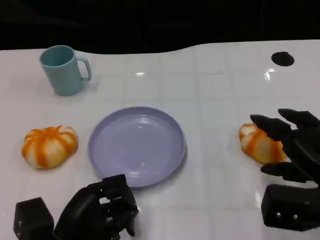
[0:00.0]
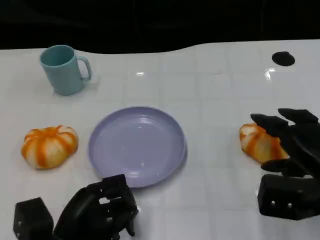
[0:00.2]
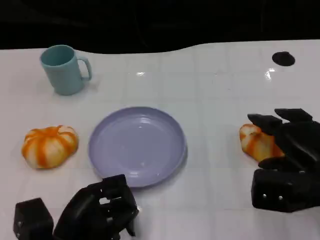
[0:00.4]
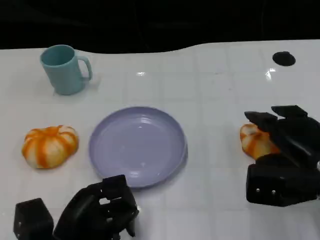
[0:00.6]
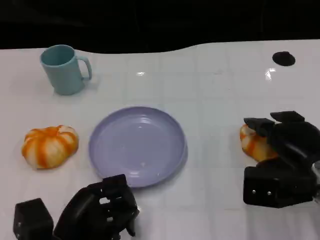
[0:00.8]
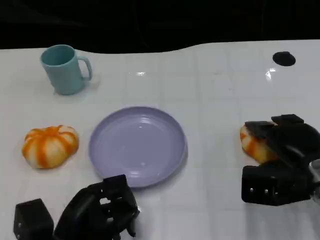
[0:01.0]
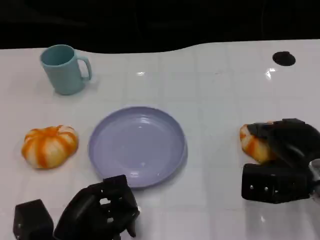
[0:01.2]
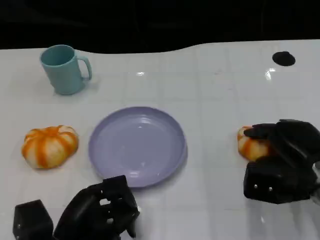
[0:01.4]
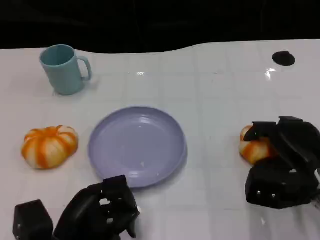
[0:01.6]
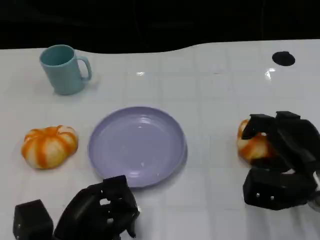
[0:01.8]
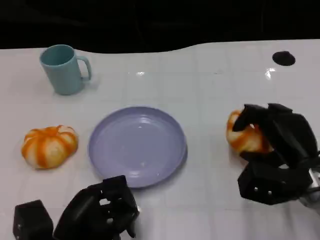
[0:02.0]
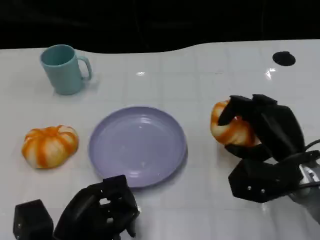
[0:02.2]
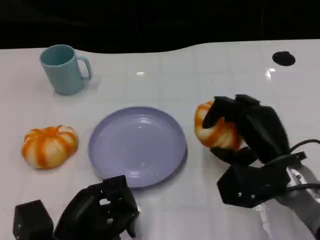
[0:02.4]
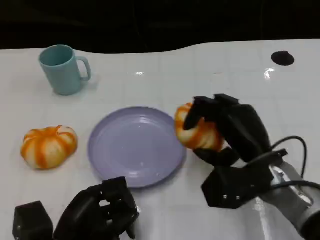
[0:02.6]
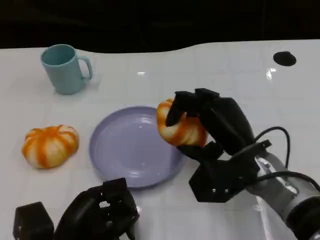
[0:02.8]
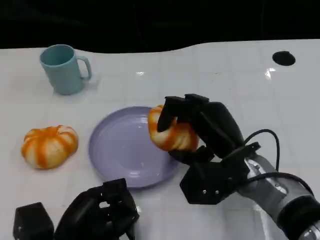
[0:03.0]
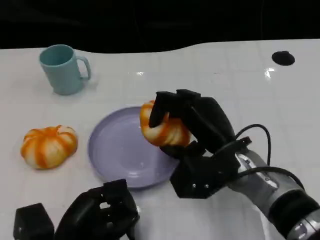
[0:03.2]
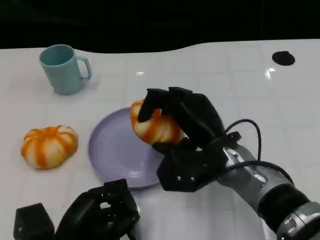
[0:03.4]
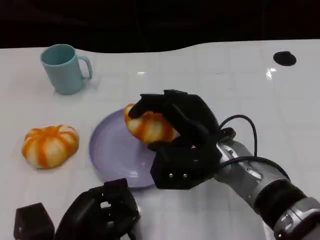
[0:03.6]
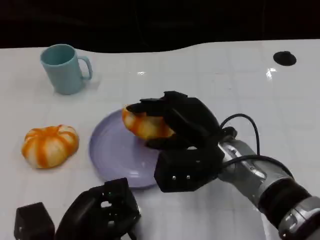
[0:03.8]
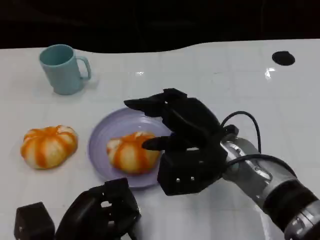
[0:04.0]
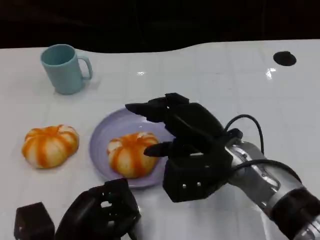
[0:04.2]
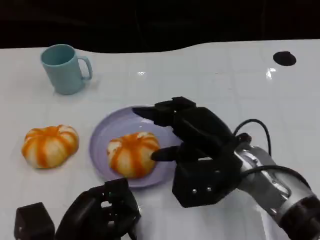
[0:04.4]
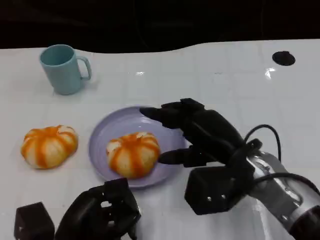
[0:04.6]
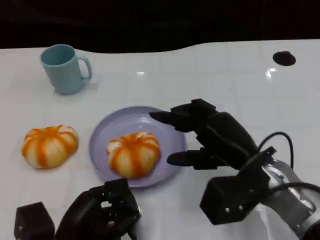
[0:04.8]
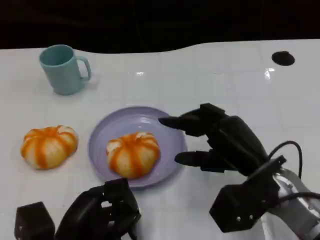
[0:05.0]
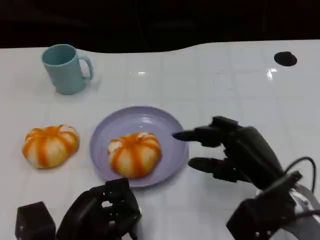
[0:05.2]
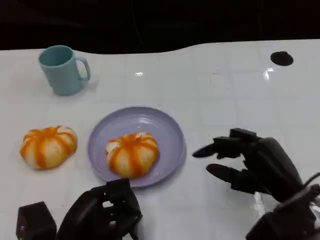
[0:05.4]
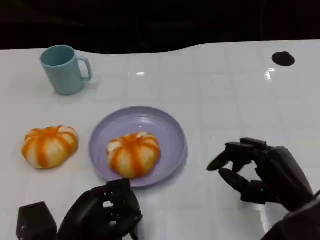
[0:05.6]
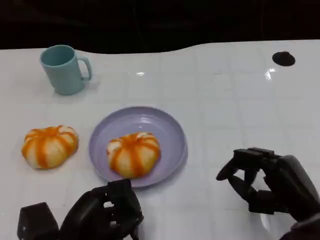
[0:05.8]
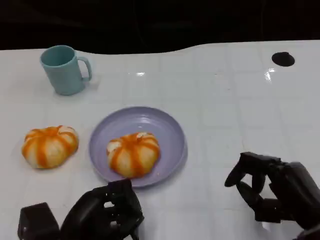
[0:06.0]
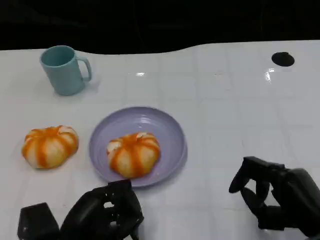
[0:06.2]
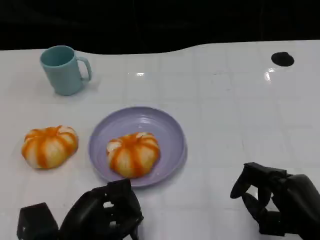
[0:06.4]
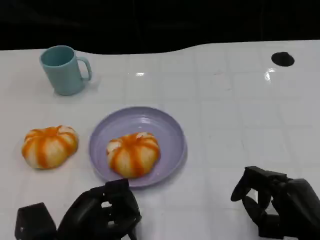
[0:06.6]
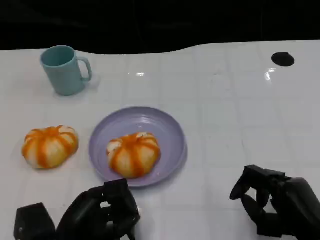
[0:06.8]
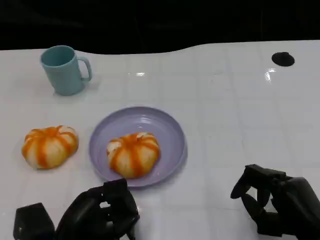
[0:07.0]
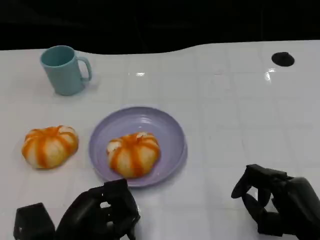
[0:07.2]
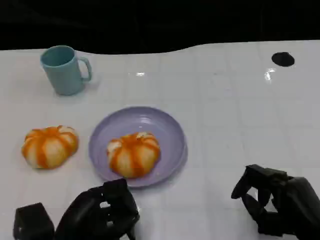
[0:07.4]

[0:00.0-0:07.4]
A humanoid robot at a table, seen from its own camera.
Task of the whole recording: Grasp the bread from the table and place it into the plate.
0:00.0 to 0:01.4: The right hand moves about 5 cm.
0:01.4 to 0:03.0: The right hand travels to the left by about 10 cm.
0:03.0 to 0:04.4: There are only small adjustments of the hands.
0:04.4 to 0:06.0: The right hand shifts approximately 15 cm to the right, backward and downward.
0:06.0 to 0:07.4: There are only small adjustments of the hands.

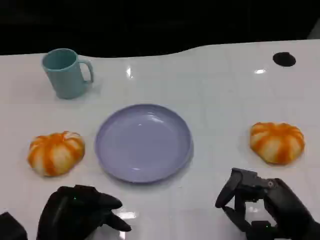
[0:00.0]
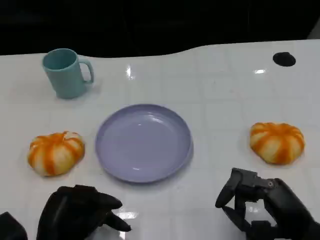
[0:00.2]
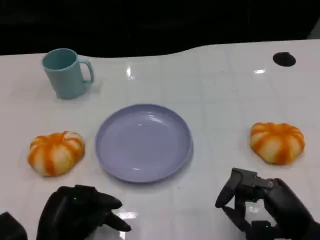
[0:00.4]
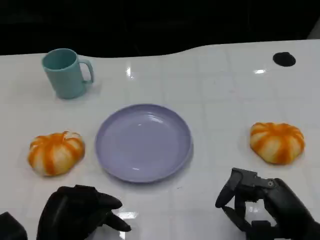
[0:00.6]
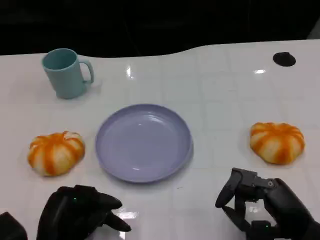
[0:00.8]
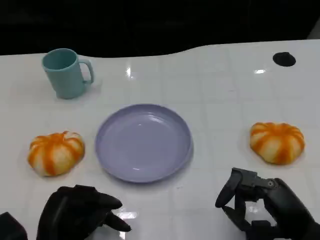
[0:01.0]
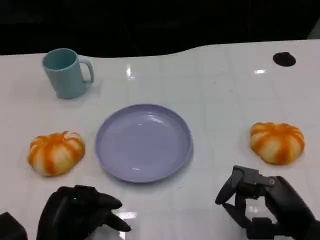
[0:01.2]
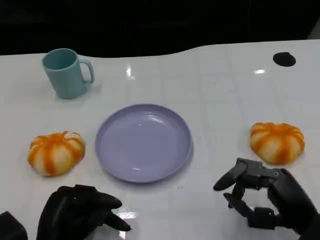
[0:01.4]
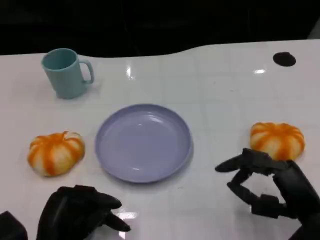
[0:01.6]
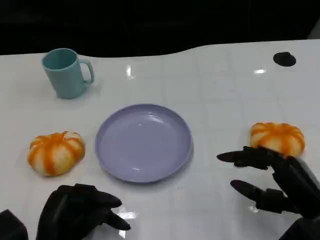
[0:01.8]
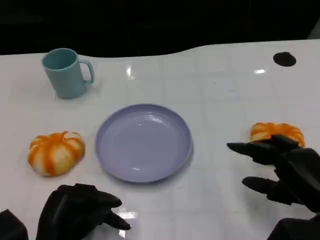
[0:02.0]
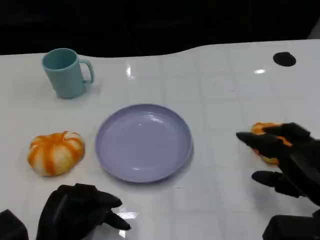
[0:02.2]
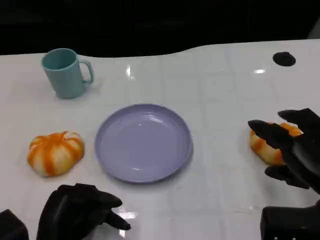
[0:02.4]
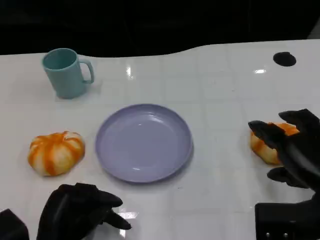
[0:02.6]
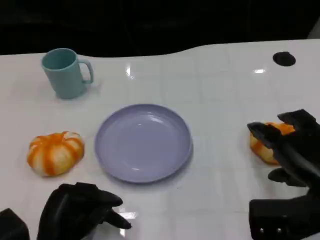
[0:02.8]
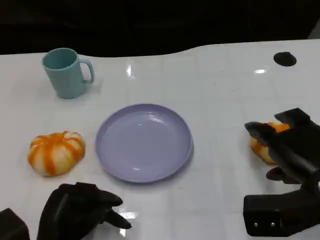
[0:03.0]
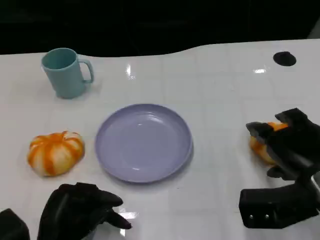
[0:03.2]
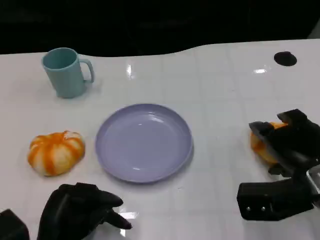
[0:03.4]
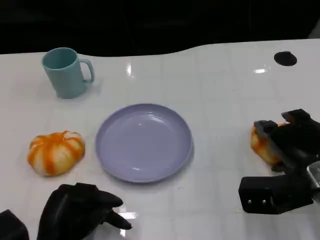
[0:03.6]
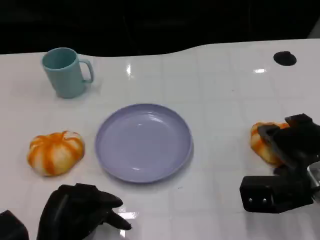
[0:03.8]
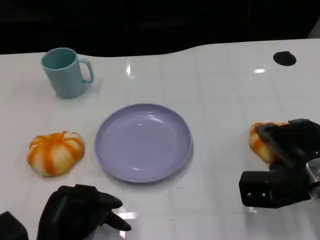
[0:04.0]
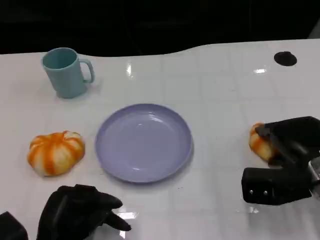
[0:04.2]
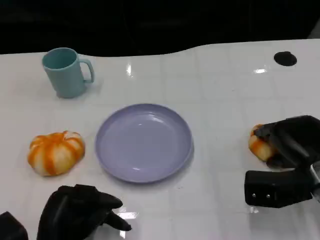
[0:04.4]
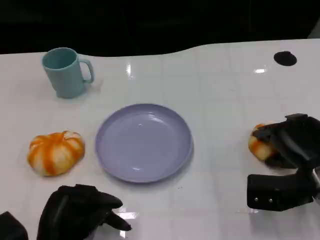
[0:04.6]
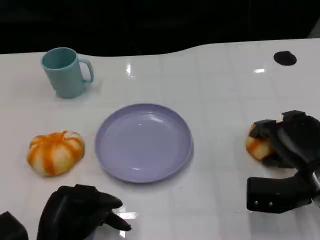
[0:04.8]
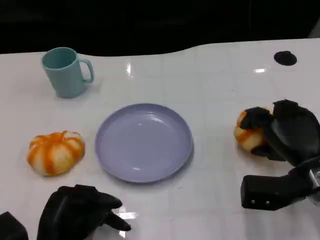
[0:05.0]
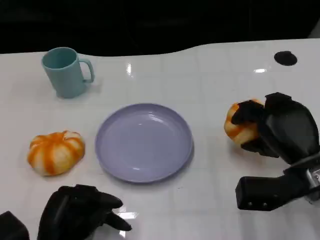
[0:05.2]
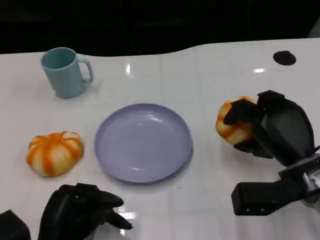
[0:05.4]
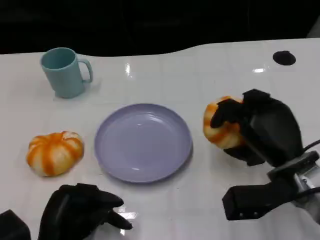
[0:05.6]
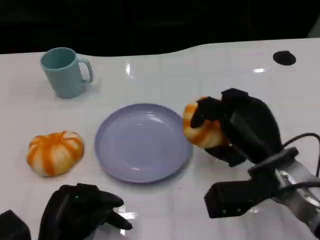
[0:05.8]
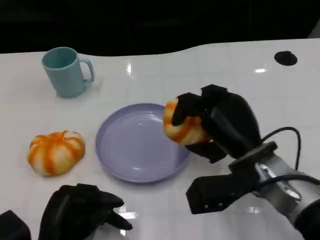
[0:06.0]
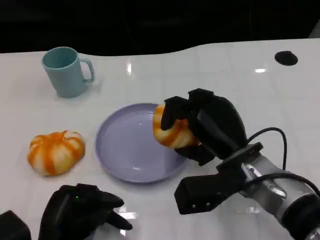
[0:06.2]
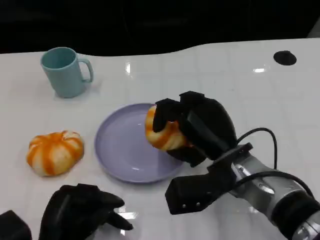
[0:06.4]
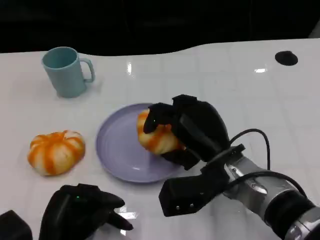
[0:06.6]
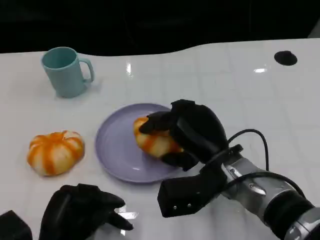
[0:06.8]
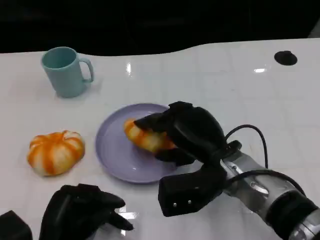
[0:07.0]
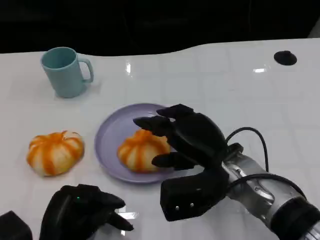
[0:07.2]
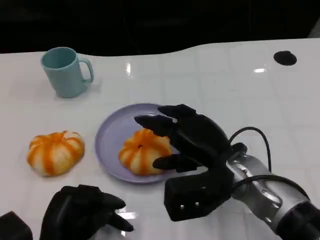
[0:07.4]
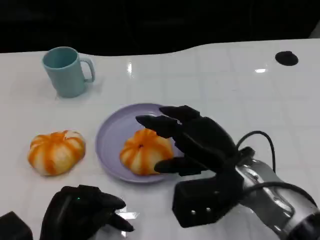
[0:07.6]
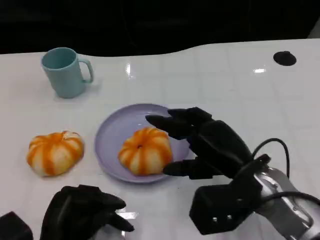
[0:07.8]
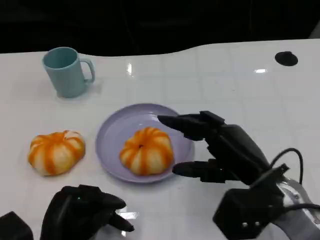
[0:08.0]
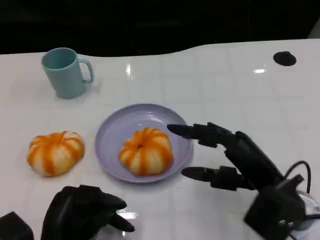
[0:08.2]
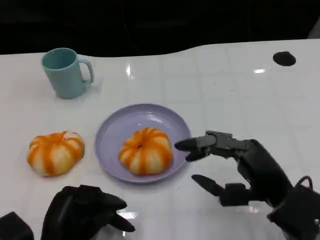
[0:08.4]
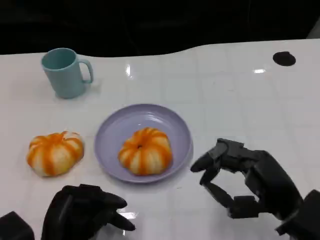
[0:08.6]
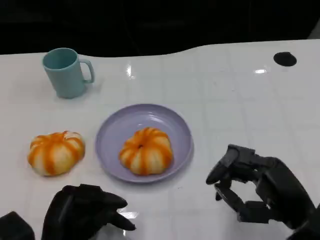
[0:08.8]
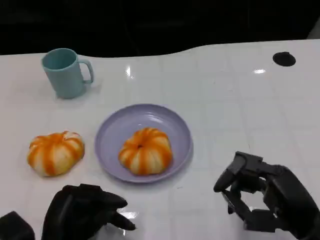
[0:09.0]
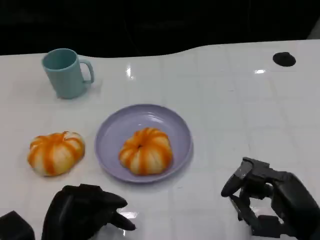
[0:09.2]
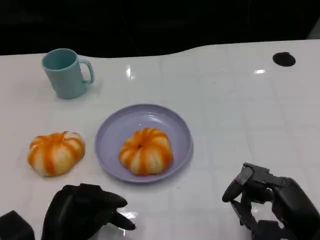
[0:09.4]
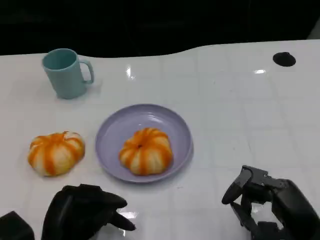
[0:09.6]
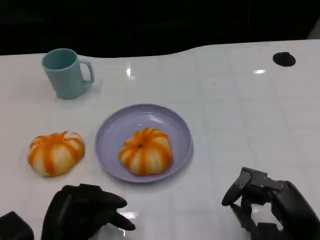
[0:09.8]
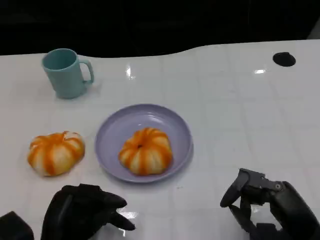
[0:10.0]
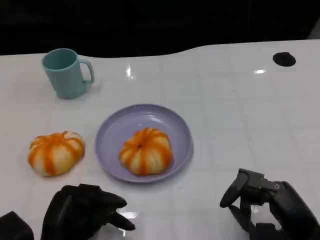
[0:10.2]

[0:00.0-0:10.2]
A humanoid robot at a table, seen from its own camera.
Task of the whole recording: Grasp the bread from the table and place it into the plate.
0:00.0 to 0:01.4: The hands stay close to where they were, moving slightly.
0:01.4 to 0:03.0: The right hand goes some 5 cm upward.
0:03.0 to 0:04.4: The right hand goes about 5 cm downward and forward.
0:04.4 to 0:05.8: The right hand shifts about 10 cm to the left.
0:05.8 to 0:07.2: The right hand is displaced to the left by some 5 cm.
0:07.2 to 0:08.8: The right hand heads to the right and backward, covering about 15 cm.
0:08.8 to 0:10.2: The hands move only a little.

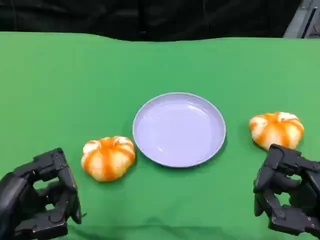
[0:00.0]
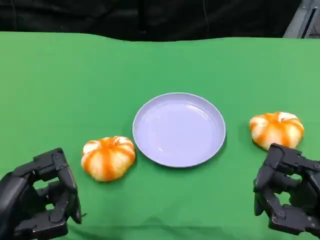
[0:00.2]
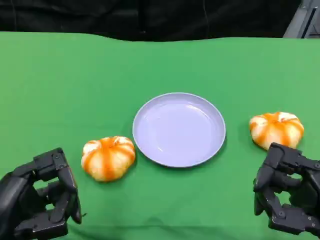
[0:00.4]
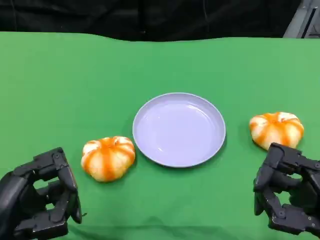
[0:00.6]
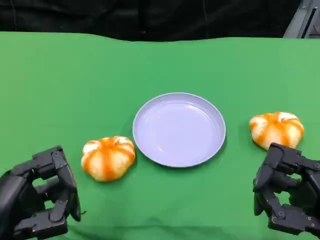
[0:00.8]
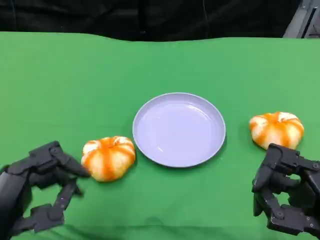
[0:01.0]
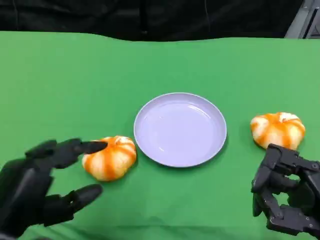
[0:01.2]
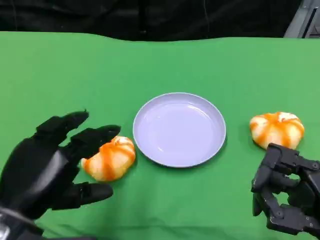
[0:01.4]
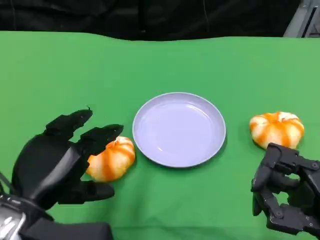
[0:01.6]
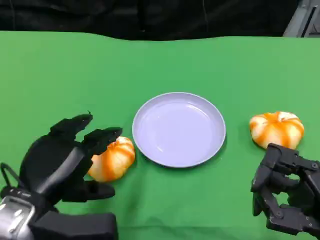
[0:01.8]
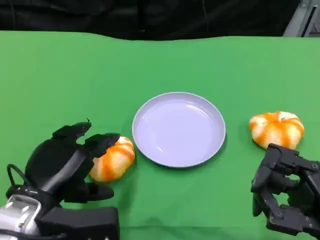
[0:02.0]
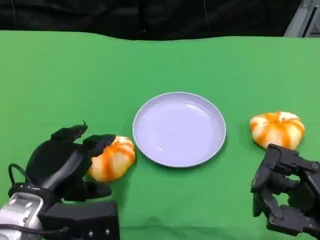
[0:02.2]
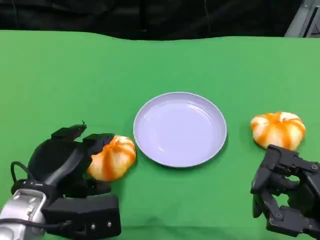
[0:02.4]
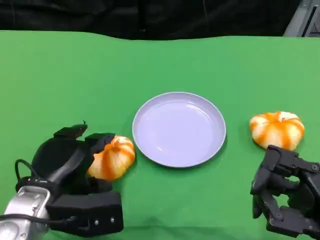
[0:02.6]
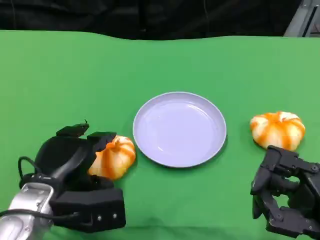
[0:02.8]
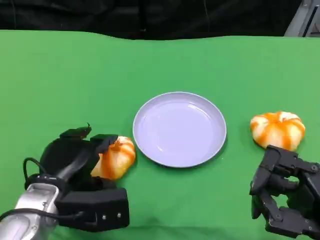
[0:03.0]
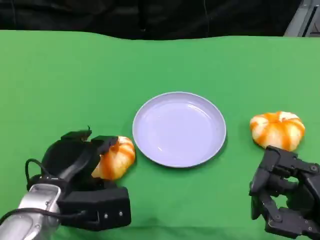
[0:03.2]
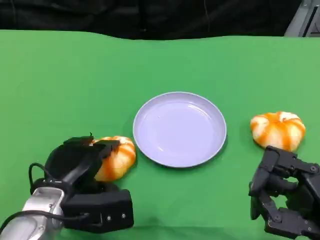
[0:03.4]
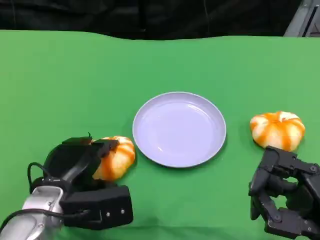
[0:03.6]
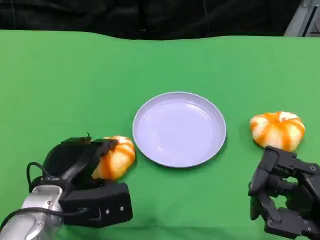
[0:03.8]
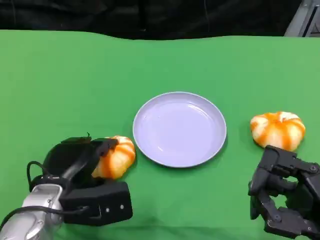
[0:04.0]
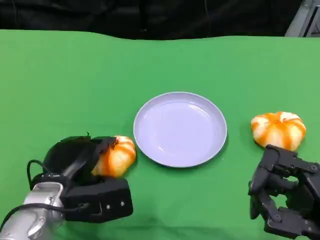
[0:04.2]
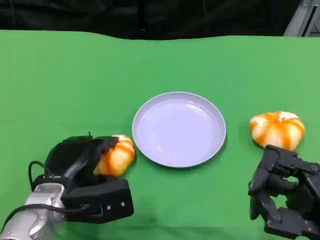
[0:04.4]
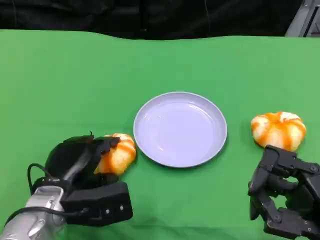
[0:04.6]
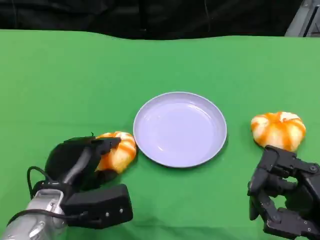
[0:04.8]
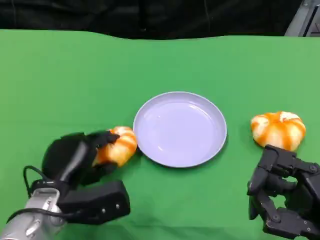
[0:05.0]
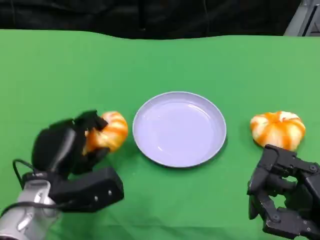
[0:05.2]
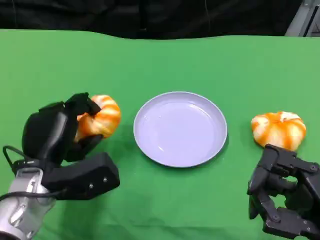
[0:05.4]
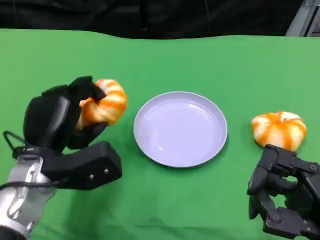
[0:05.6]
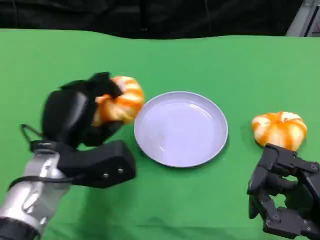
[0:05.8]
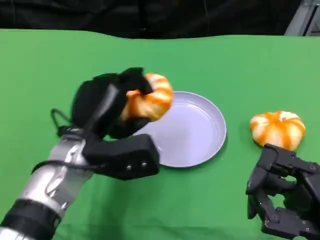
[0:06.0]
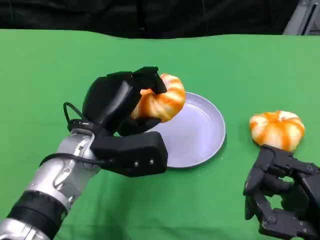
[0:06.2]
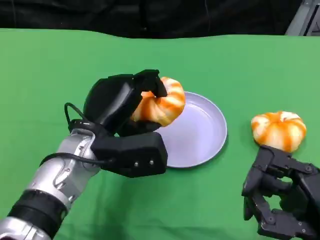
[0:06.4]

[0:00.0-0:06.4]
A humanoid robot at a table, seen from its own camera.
Task of the whole recording: Grasp the bread from the table and place it into the plate.
0:00.0 to 0:01.6: The left hand changes place by approximately 5 cm.
0:01.6 to 0:03.2: The left hand moves downward and forward, approximately 10 cm.
0:03.2 to 0:04.8: There are only small adjustments of the hands.
0:04.8 to 0:06.4: The left hand goes approximately 10 cm upward and to the right.
